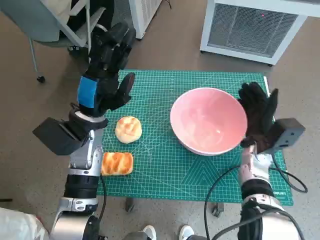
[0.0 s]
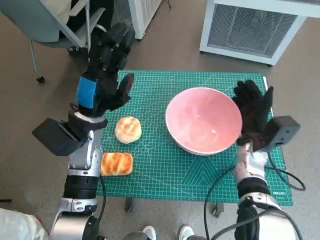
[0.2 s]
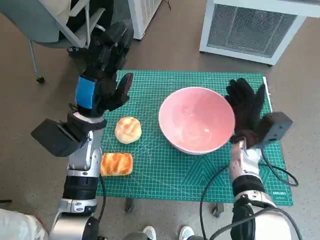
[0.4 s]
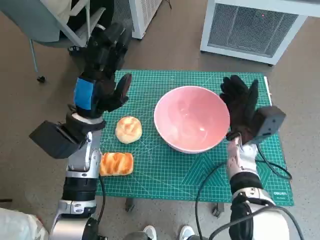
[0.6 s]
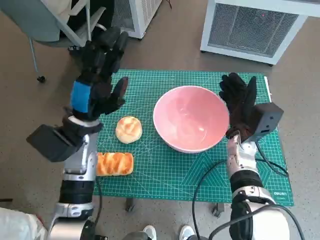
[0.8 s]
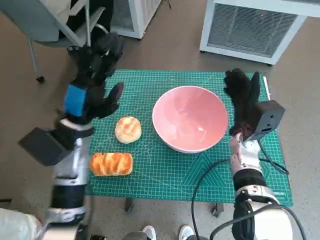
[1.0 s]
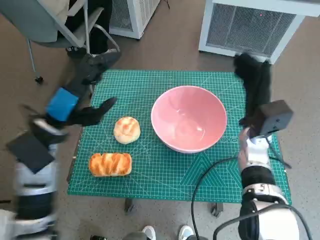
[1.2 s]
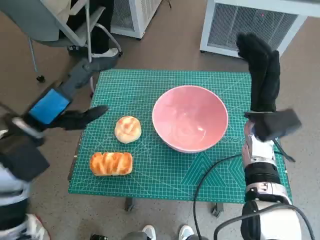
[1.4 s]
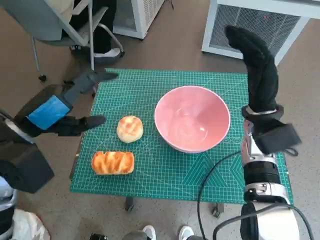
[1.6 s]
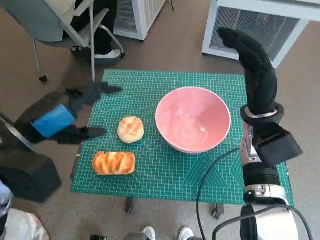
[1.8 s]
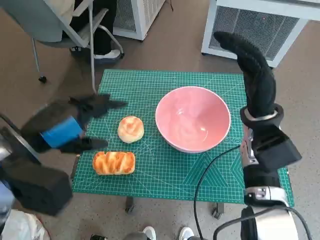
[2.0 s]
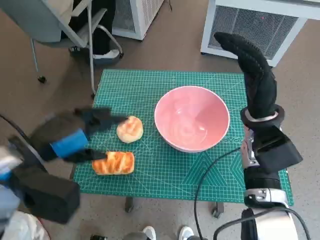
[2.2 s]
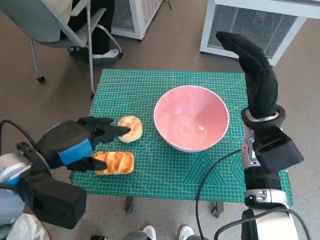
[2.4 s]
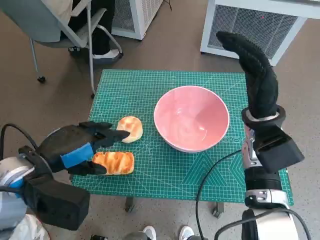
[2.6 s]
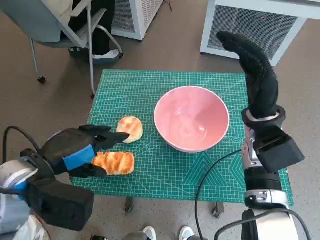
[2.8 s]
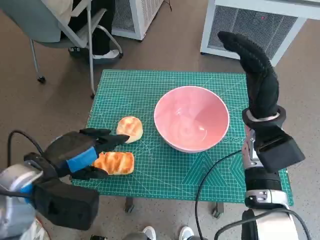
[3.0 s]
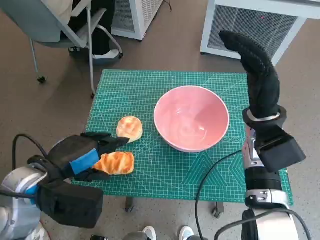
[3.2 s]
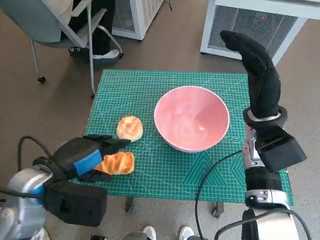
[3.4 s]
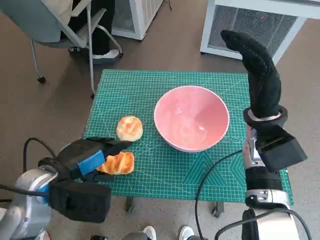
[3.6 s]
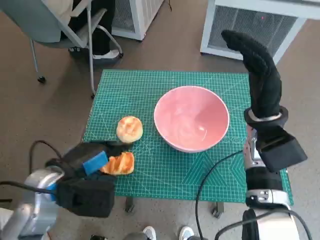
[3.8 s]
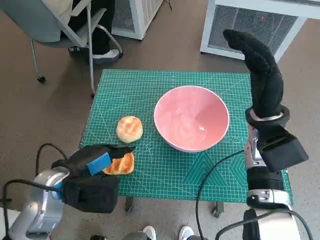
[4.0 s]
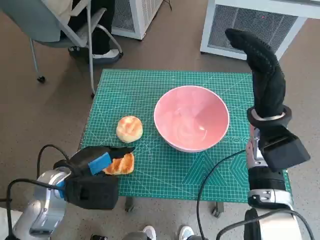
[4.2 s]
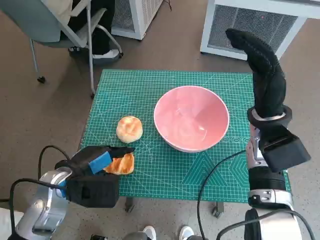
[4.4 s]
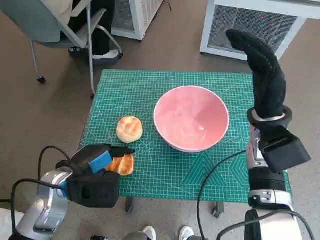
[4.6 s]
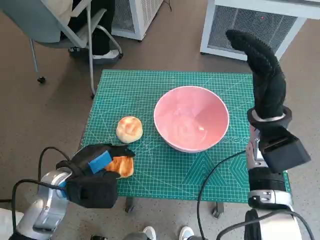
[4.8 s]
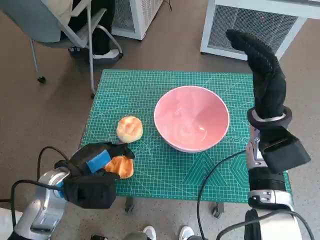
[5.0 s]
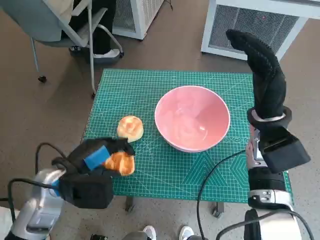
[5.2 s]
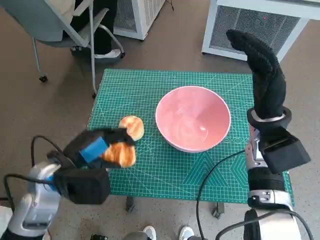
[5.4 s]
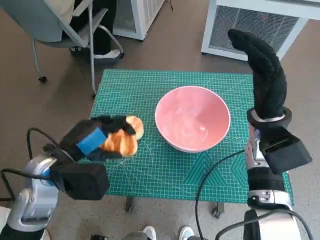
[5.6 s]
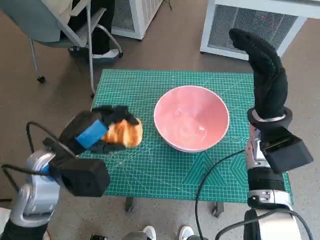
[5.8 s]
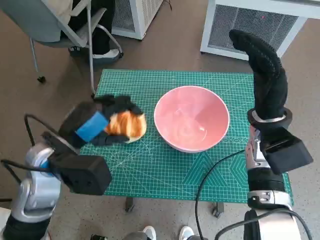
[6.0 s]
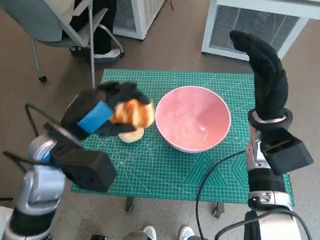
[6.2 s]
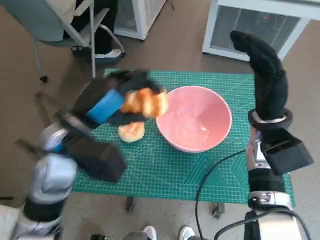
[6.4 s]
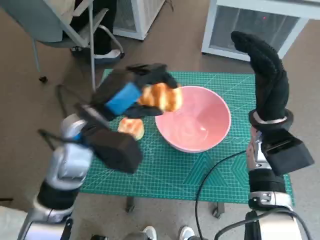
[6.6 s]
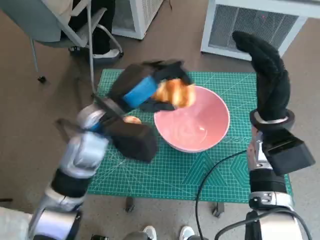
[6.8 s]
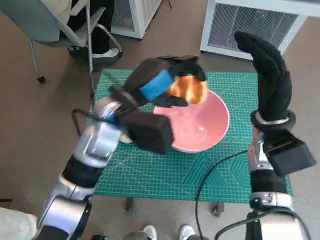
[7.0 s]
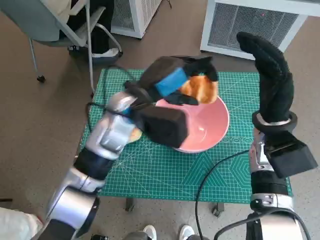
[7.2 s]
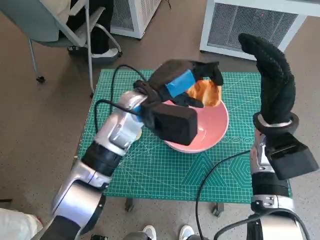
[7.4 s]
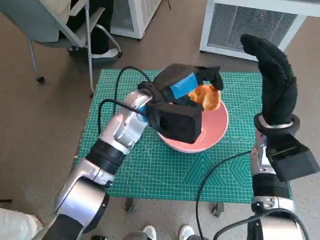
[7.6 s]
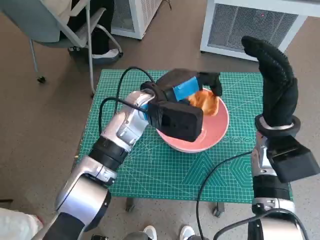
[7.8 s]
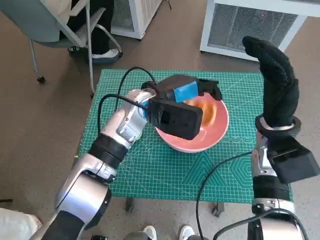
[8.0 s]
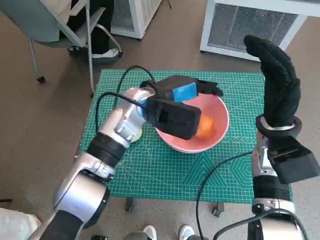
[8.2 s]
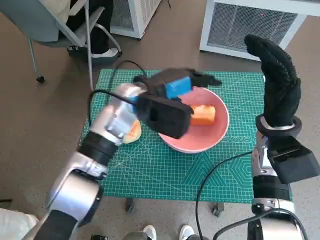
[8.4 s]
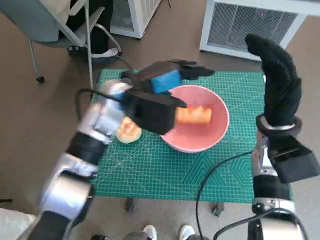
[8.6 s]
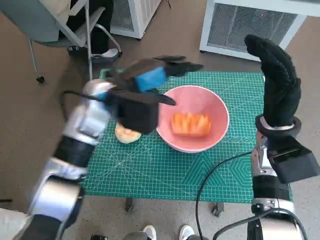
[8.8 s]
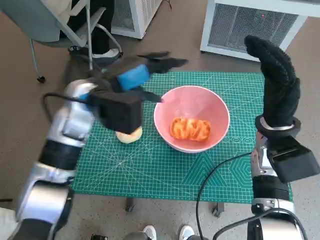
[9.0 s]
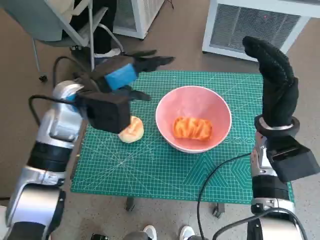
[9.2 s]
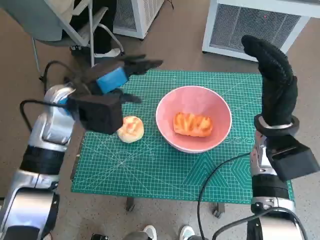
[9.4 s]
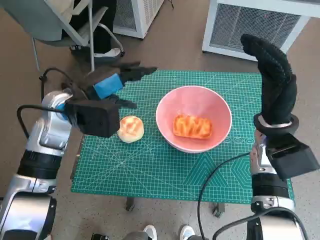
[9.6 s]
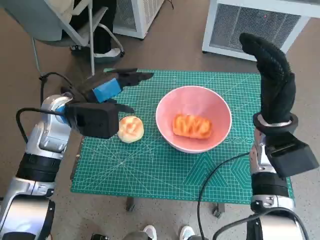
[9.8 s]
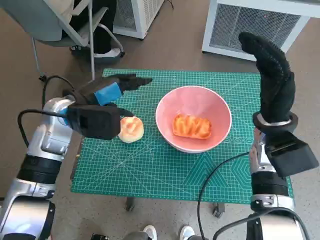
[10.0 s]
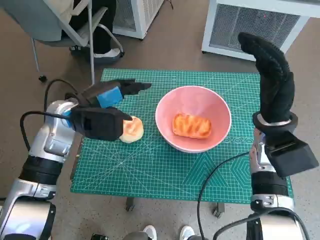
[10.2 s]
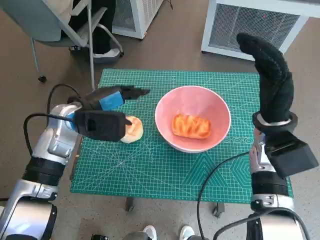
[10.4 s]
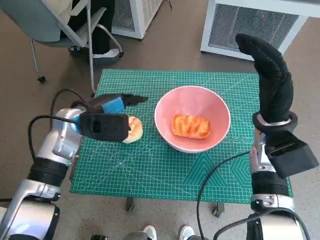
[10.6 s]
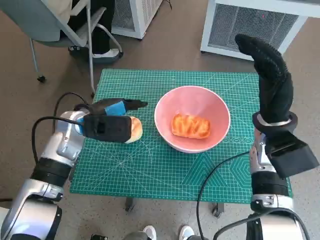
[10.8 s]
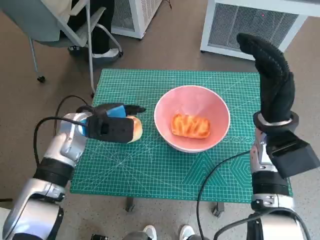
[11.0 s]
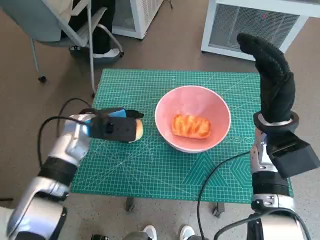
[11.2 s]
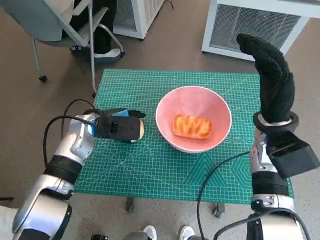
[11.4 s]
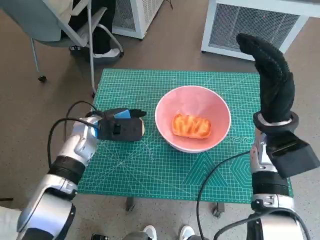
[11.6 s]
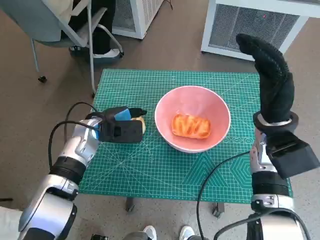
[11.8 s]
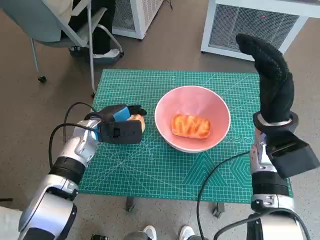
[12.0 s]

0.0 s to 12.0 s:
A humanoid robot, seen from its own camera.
Task of the whole recording: Push the bowl to the center of the table and put the bread into the bowl.
Step, 1.2 to 4.8 s: Grasp the long bread with left hand.
Step, 5.2 to 8.8 s: Place the long bread in pink bowl with left hand.
0.0 to 1.6 s: The right hand is displaced upward by roughly 10 cm; the left hand shifts some 10 cm to the left, upward and backward.
1.6 to 3.0 s: The left hand shifts by approximately 5 cm.
3.0 to 4.4 s: The left hand moves downward, roughly 10 cm.
4.4 to 6.0 s: The left hand shifts roughly 5 cm upward.
6.0 to 7.6 s: The left hand moves to the right and forward, about 15 cm.
7.6 to 9.0 s: The left hand is displaced to the left by approximately 10 cm.
9.0 to 10.4 s: The left hand shifts roughly 5 cm to the left and downward.
10.4 to 12.0 s: The left hand is displaced downward by approximately 5 cm.

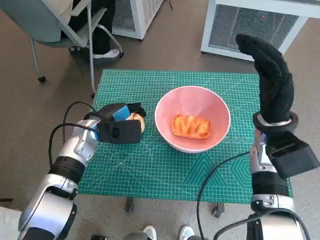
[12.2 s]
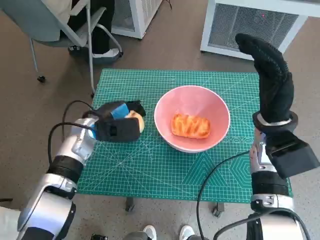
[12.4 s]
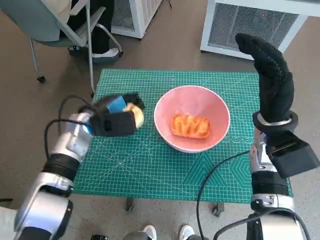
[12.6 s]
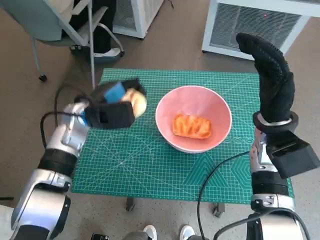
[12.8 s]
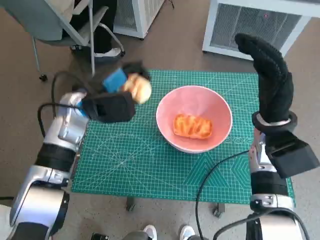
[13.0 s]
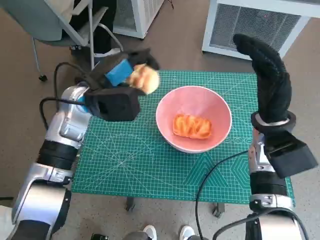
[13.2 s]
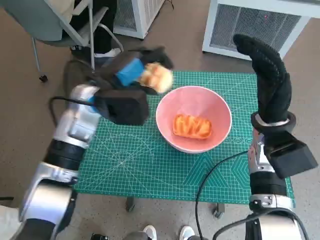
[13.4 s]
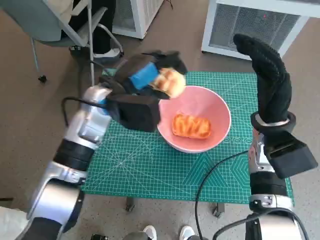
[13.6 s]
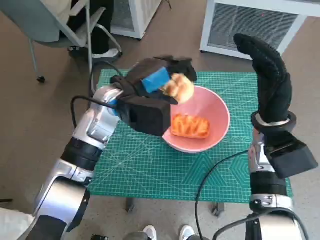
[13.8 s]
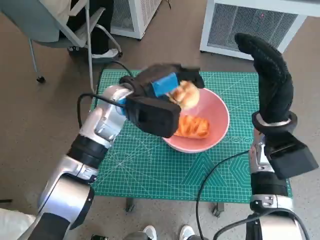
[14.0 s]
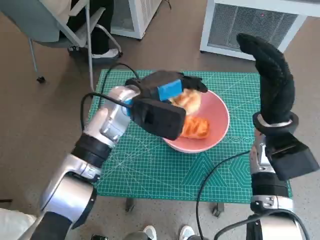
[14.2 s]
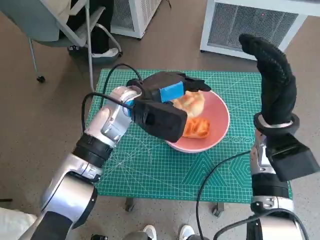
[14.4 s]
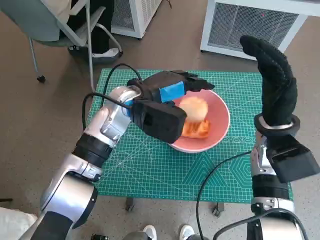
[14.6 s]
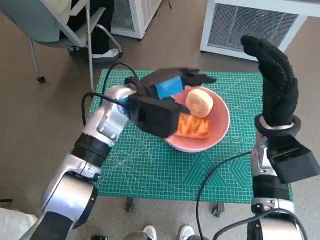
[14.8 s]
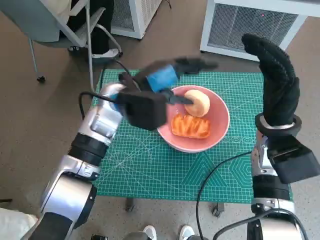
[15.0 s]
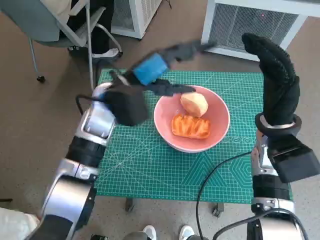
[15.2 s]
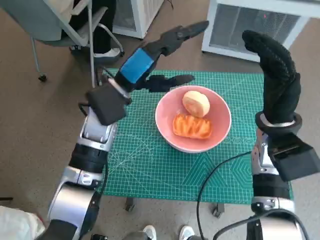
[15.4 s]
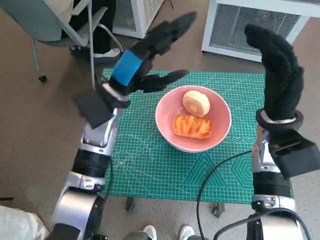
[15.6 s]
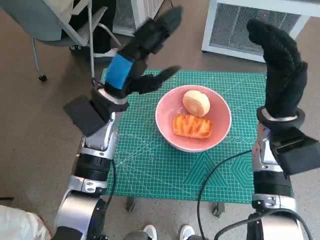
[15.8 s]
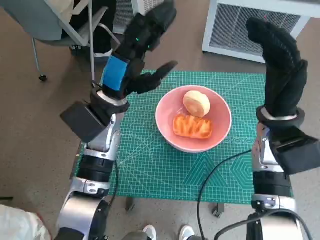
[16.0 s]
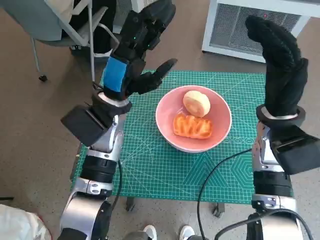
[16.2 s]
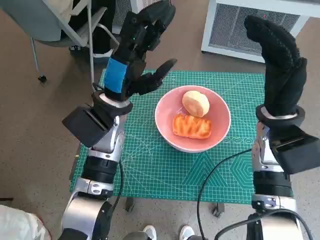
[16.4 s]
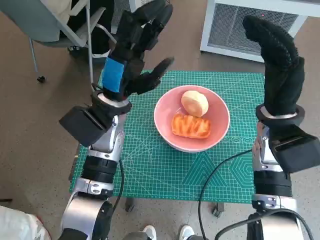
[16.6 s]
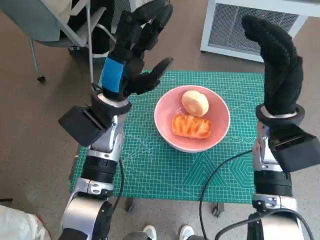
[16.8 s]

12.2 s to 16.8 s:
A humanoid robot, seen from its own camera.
Task of the whole recording: Push the bowl to the center of the table and put the bread into the bowl.
Step, 12.4 to 15.2 s: Place the round bread in pink bowl with left hand.
12.2 to 13.8 s: The left hand moves upward and to the right, about 15 cm.

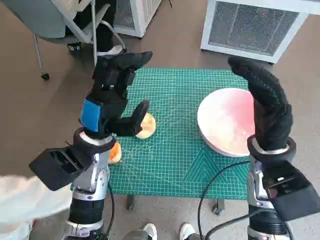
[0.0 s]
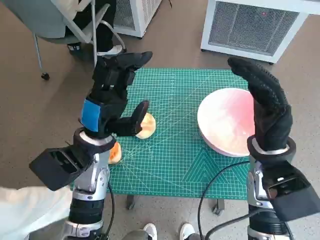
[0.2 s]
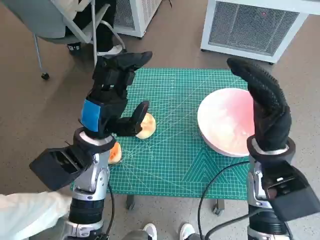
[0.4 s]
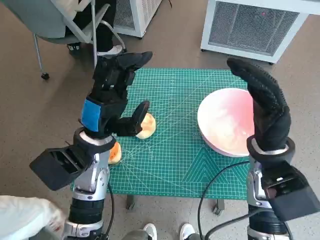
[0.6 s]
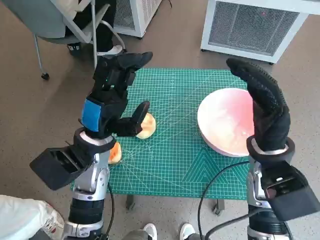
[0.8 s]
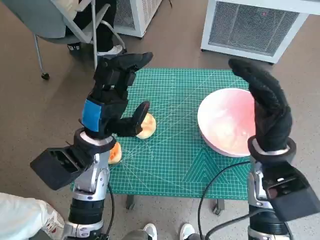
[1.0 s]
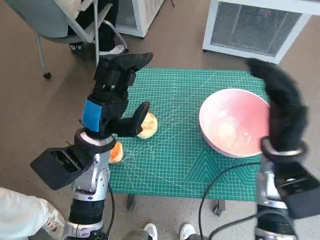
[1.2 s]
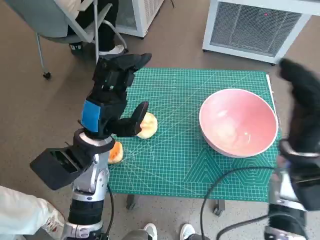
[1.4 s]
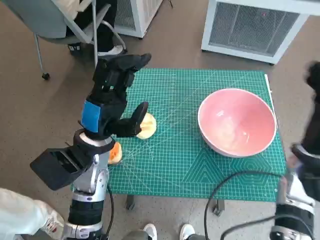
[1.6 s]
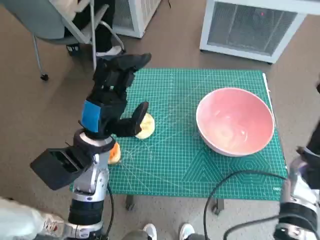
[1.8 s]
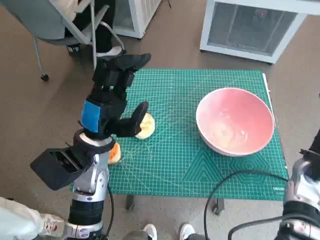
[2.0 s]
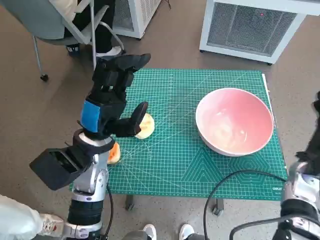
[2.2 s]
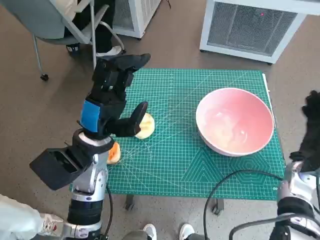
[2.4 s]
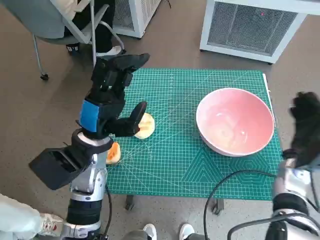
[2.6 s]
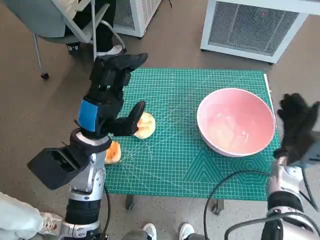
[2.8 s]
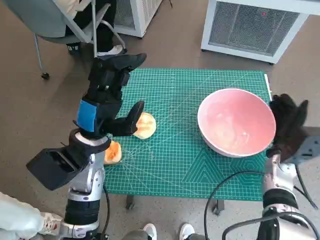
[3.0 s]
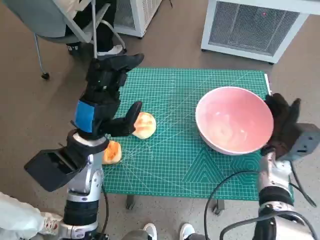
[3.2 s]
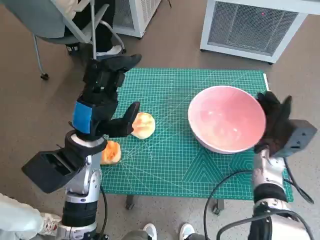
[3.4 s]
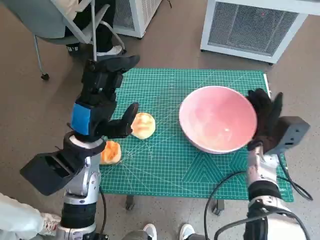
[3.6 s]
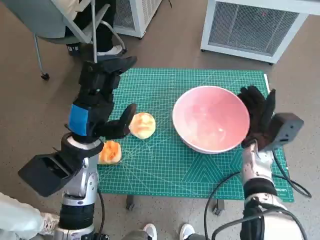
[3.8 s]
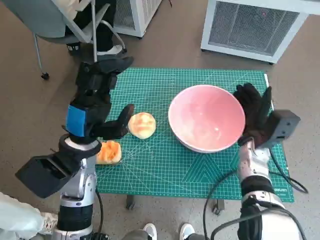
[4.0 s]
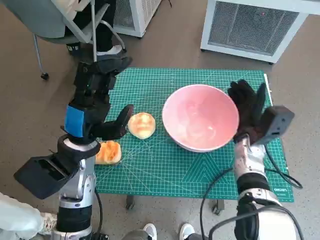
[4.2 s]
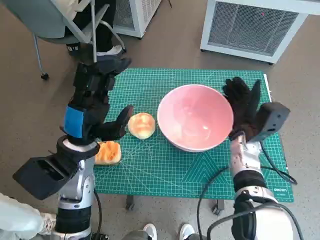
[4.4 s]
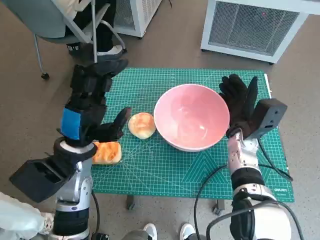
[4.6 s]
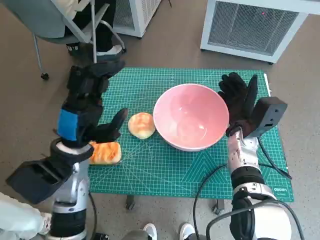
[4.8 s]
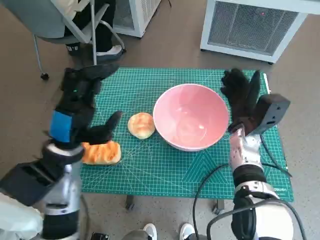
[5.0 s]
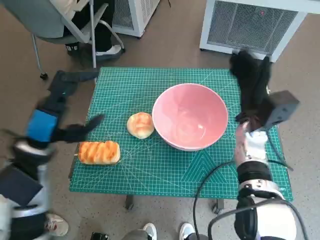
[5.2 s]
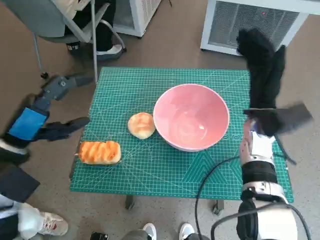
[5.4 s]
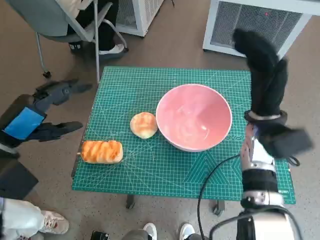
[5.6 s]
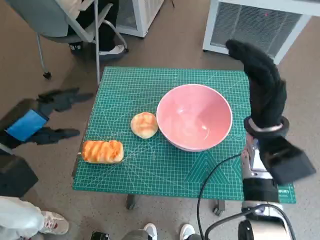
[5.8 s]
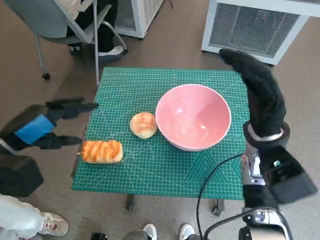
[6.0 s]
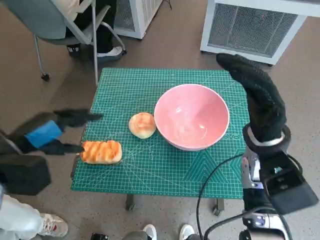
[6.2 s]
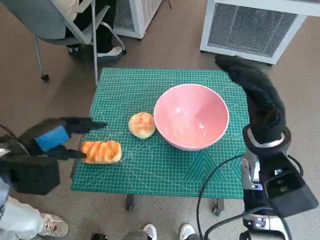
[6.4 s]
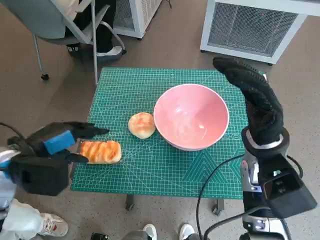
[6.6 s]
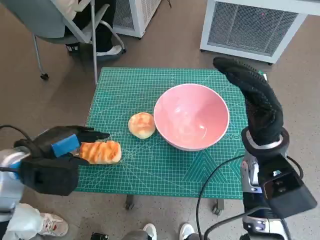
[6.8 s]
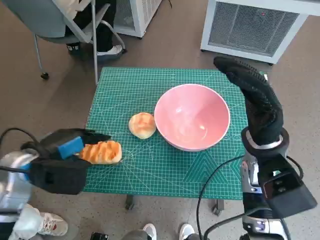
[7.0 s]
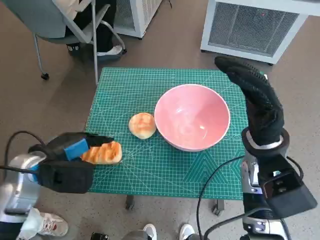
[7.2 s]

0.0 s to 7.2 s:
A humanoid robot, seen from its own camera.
Task of the whole recording: Push the bowl to the center of the table and put the bread into the bowl.
Step, 0.0 to 5.2 s: Move the pink bowl to the center of table with right hand.
1.4 to 2.8 s: The right hand moves downward, roughly 10 cm.
2.8 to 4.4 s: The right hand goes approximately 10 cm to the left.
4.4 to 5.8 s: The right hand heads upward, covering roughly 10 cm. Meanwhile the left hand travels to the left and upward by about 15 cm.
5.8 to 7.2 s: The left hand is displaced downward by approximately 5 cm.
